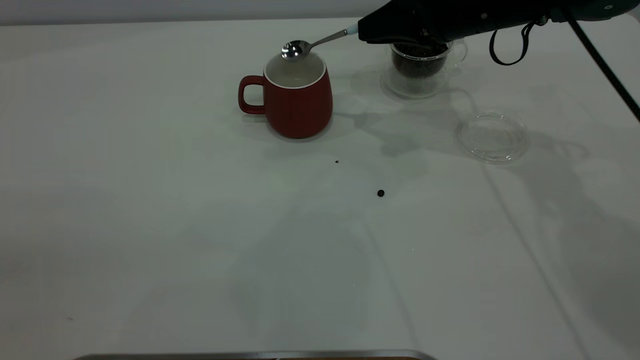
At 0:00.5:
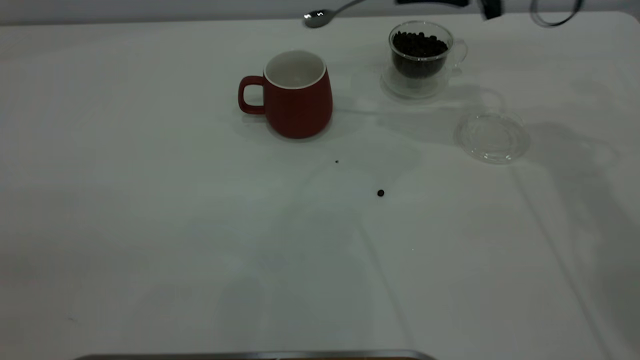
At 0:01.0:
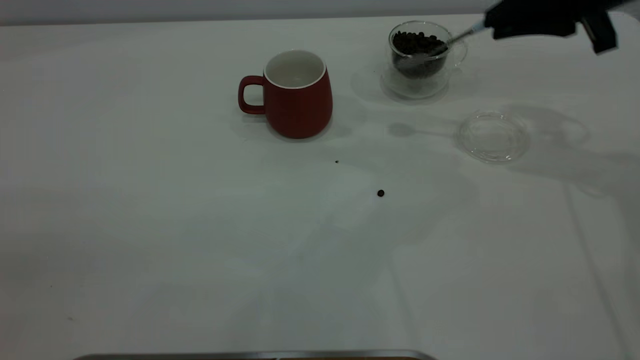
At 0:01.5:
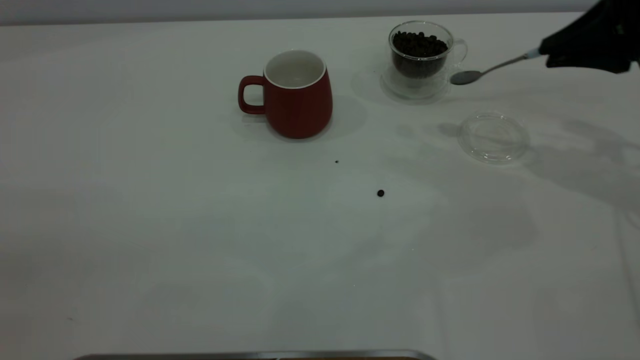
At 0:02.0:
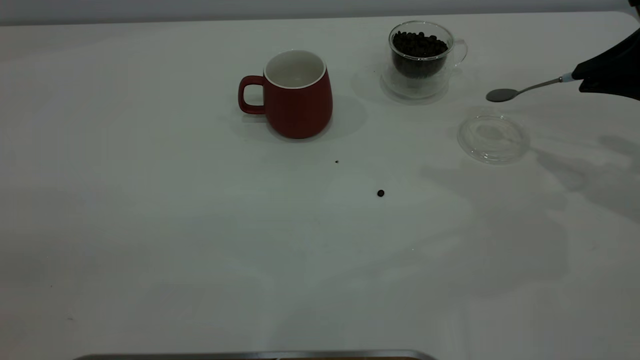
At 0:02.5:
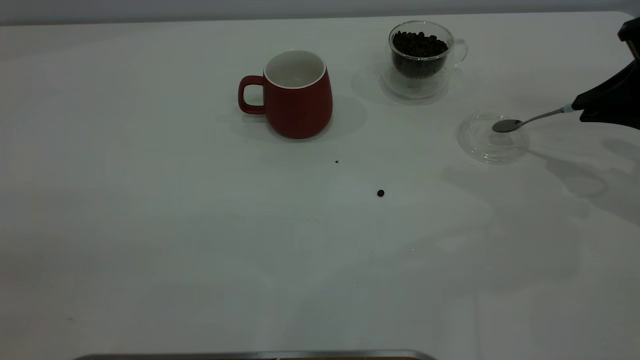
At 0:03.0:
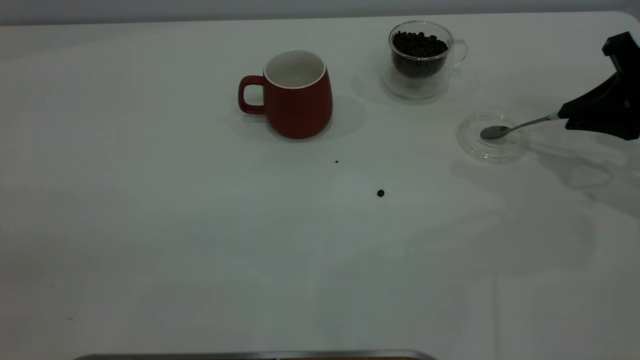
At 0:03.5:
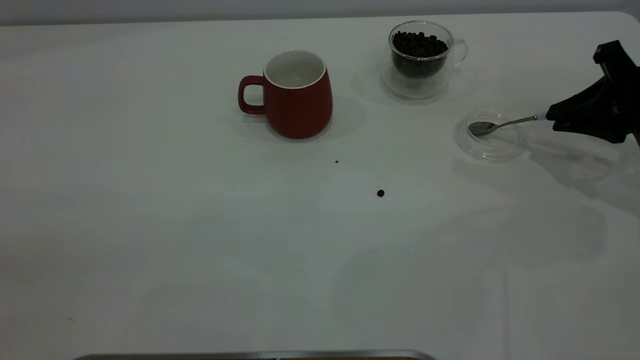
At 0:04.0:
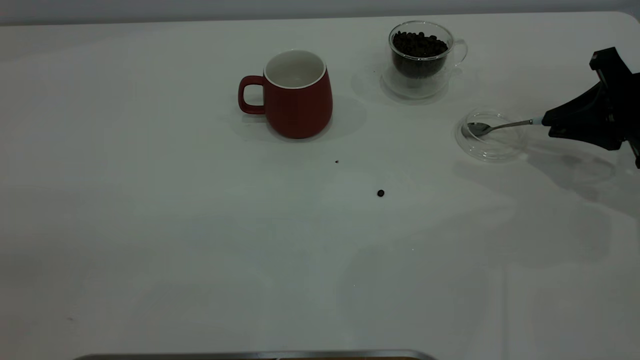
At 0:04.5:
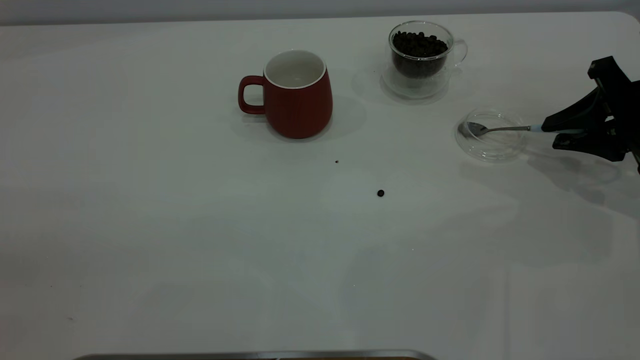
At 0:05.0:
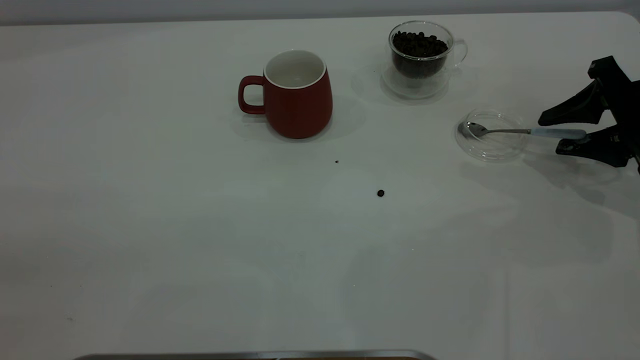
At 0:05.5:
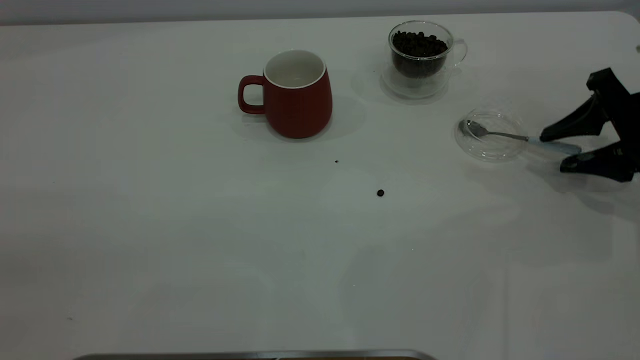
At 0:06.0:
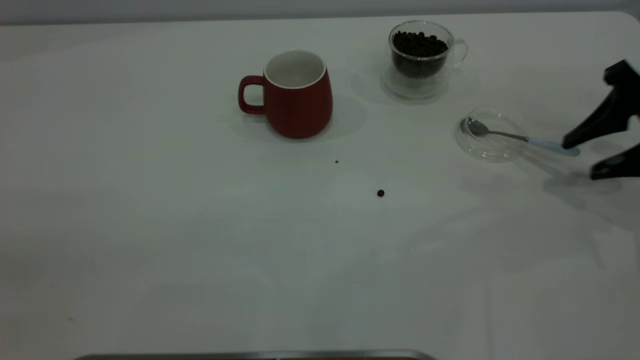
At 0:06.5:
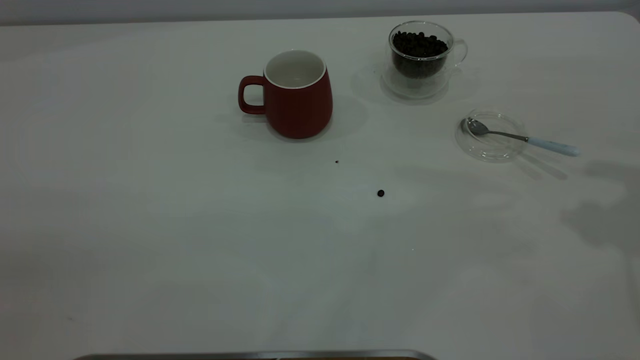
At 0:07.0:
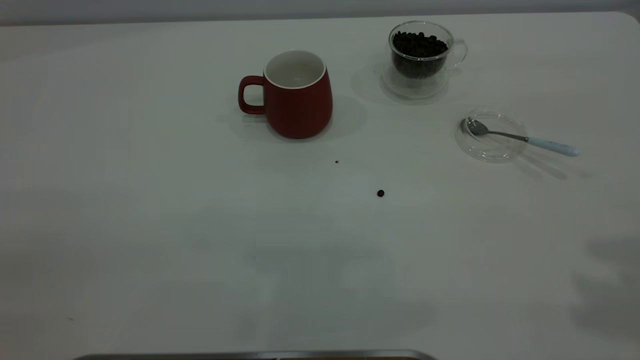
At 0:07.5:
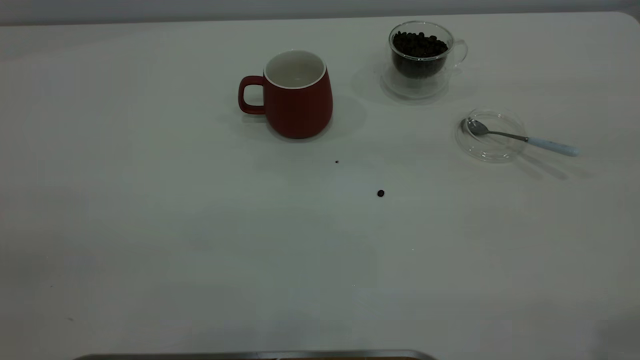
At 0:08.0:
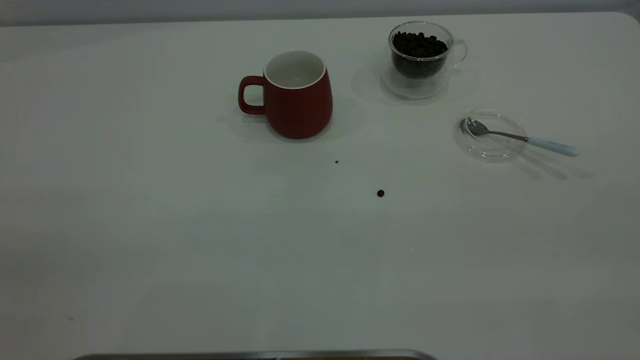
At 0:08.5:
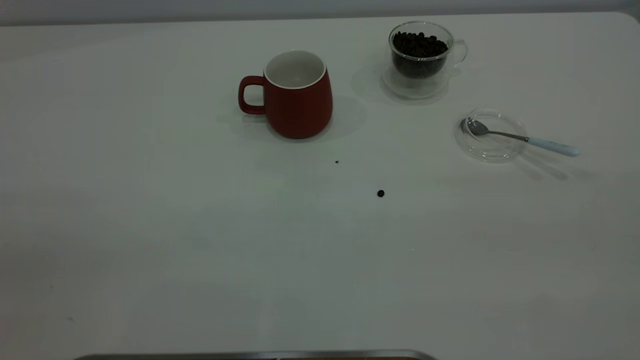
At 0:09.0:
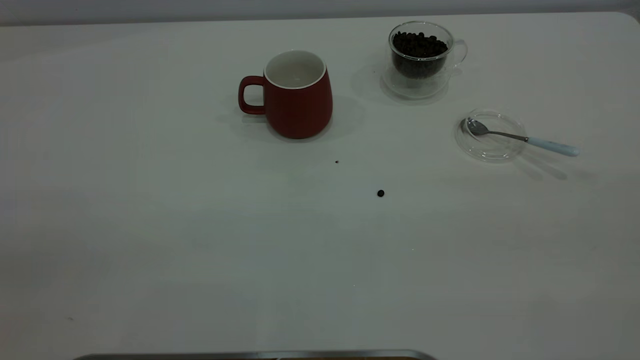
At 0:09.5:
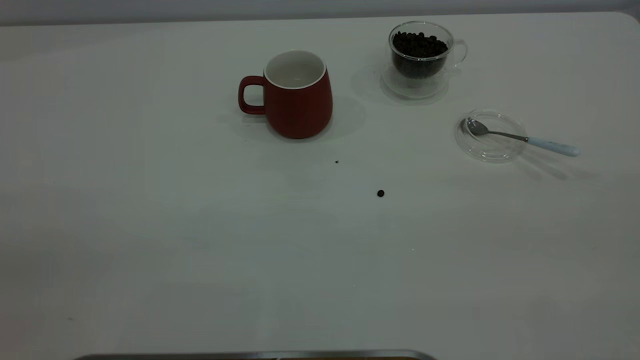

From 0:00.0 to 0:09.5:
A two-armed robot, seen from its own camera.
Task of the whole recording: the left gripper place the red cup in the center of the table, the right gripper take the blue spoon from the cup lid and scoop out the coffee beans from the coffee cup and put them into the red cup, the right gripper put the spoon back into the cup lid.
Step, from 0:00.5 to 0:05.5: Place the spoon back in its original place.
From 0:00.0 to 0:02.0: The right gripper shifts about 20 cm to the right and backward.
From 0:02.0 to 0:04.0: The right gripper travels downward by about 5 cm.
From 0:04.0 to 0:05.5: The right gripper opens.
From 0:05.5 to 0:07.5: The right gripper travels upward and backward by some 40 cm.

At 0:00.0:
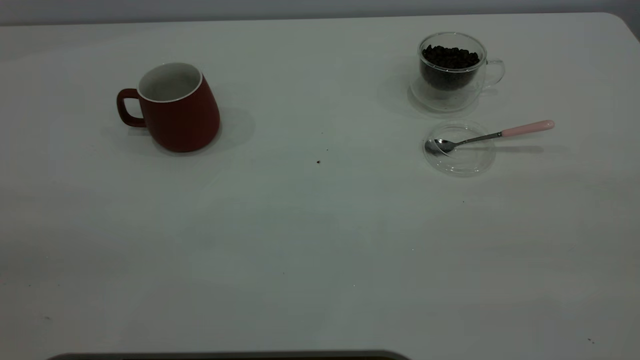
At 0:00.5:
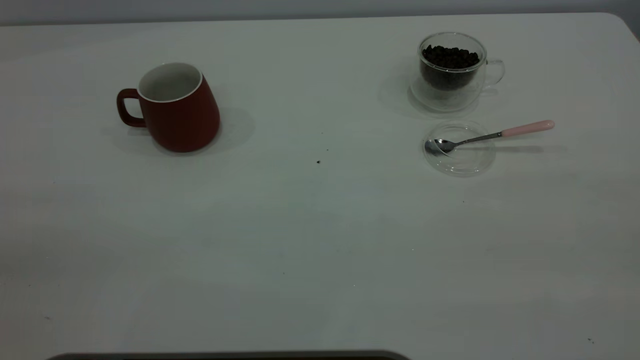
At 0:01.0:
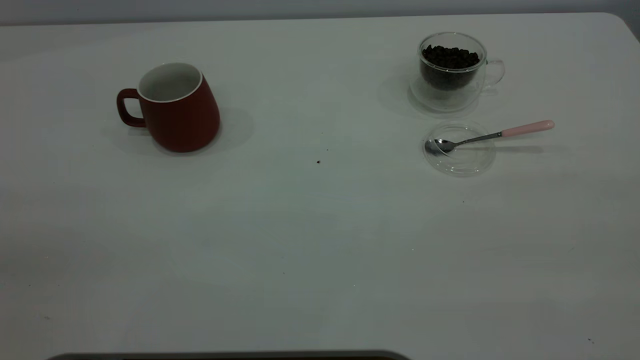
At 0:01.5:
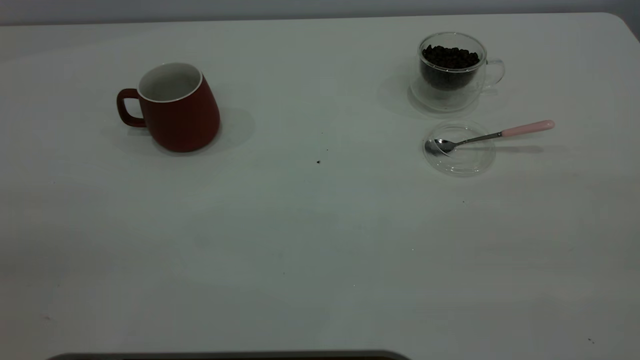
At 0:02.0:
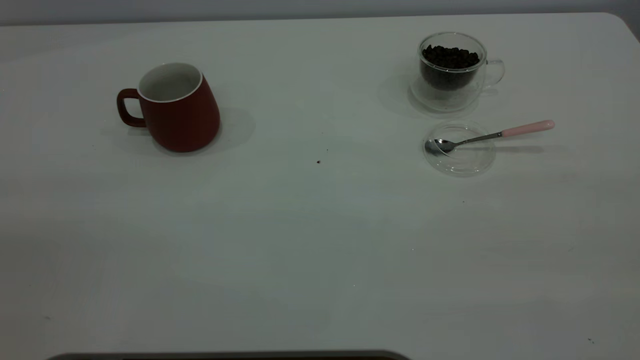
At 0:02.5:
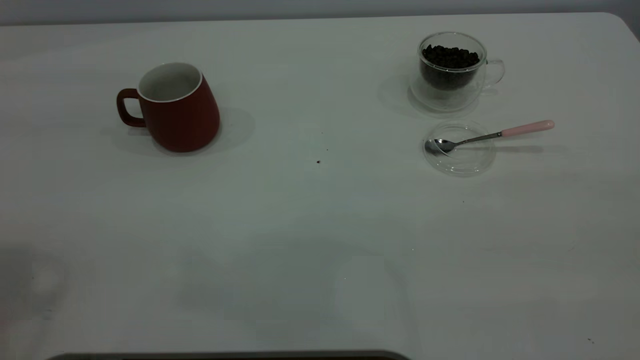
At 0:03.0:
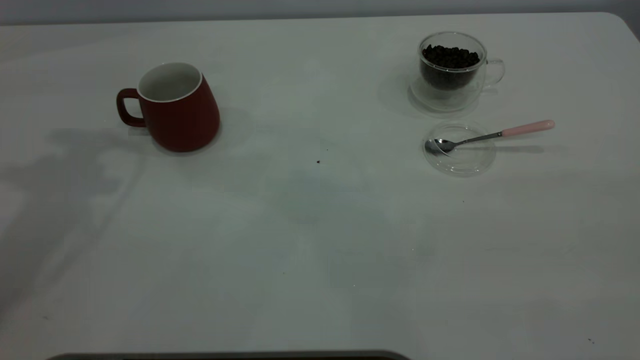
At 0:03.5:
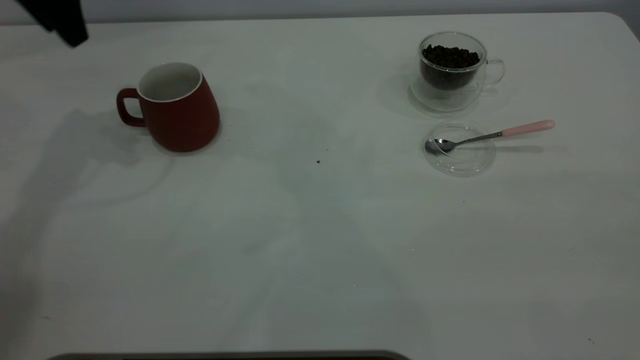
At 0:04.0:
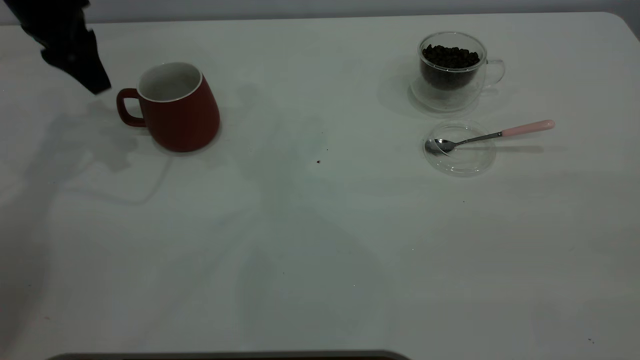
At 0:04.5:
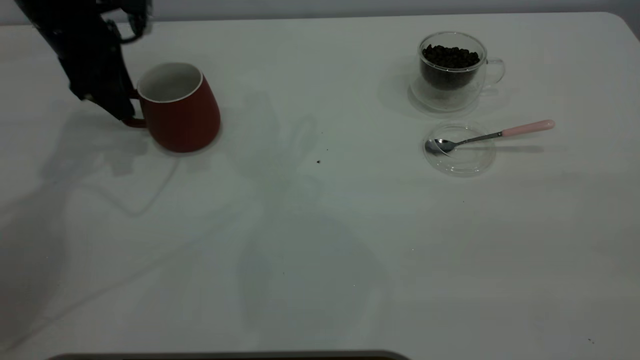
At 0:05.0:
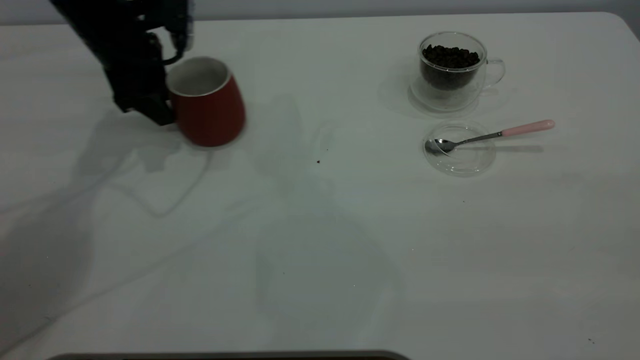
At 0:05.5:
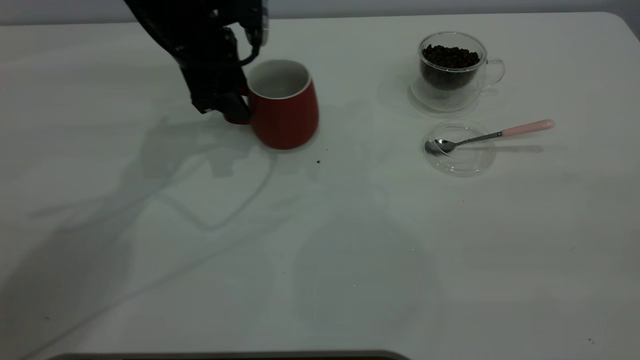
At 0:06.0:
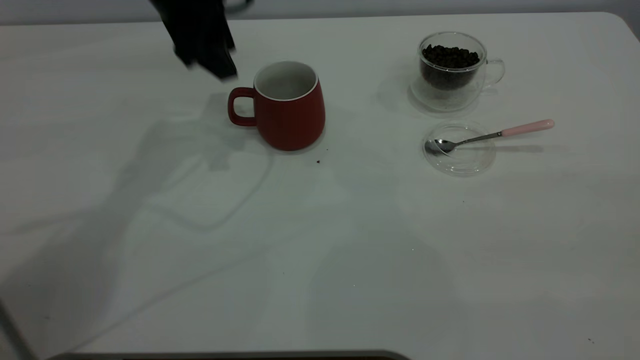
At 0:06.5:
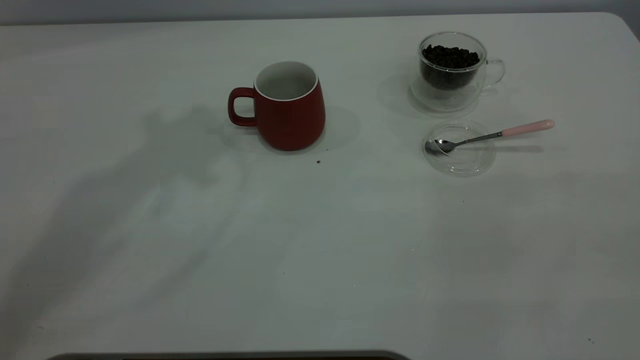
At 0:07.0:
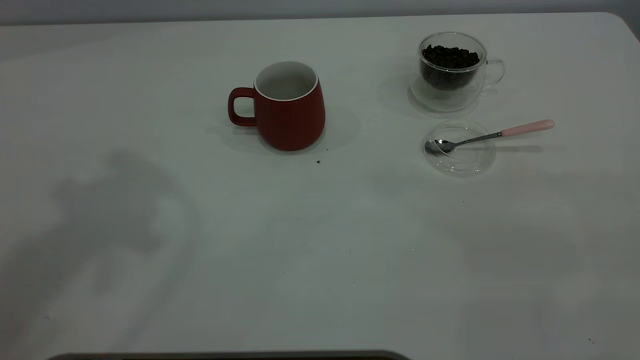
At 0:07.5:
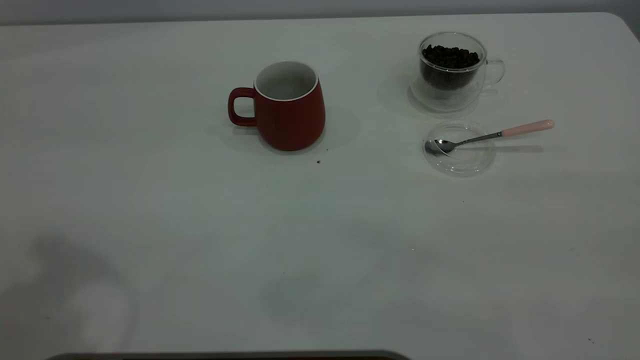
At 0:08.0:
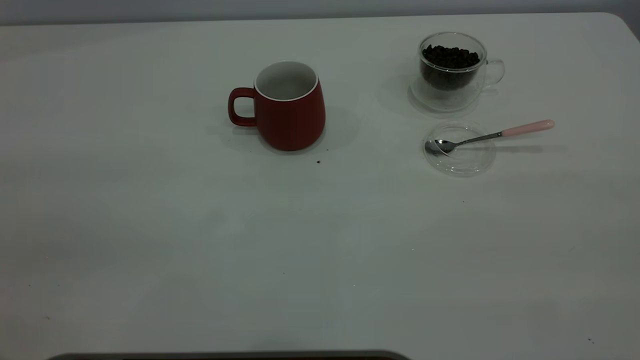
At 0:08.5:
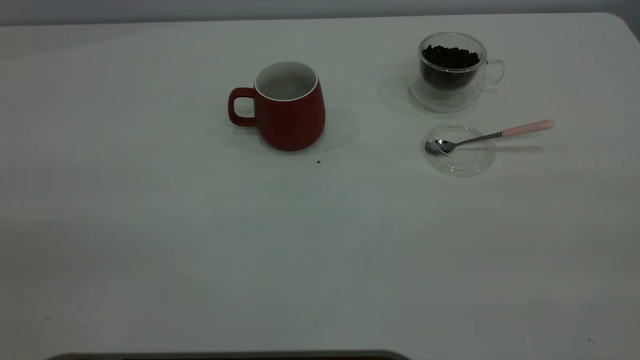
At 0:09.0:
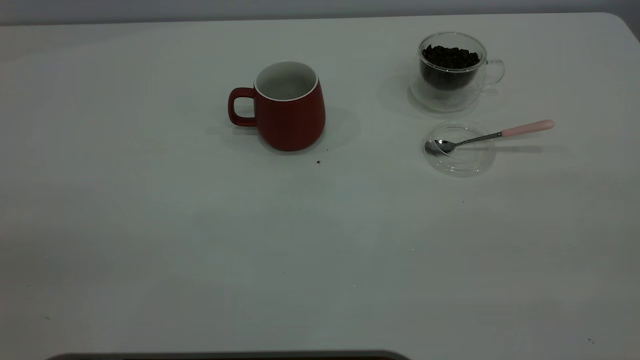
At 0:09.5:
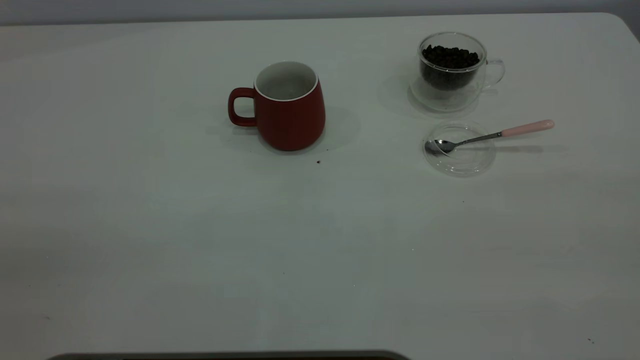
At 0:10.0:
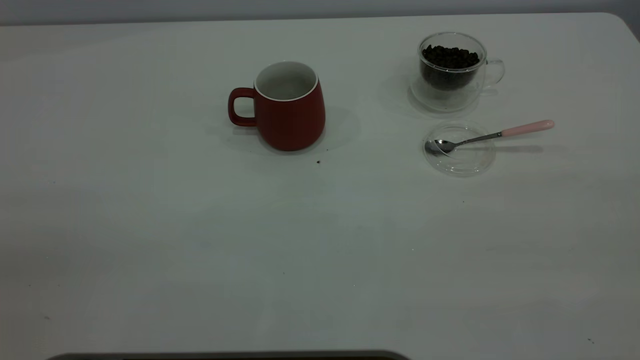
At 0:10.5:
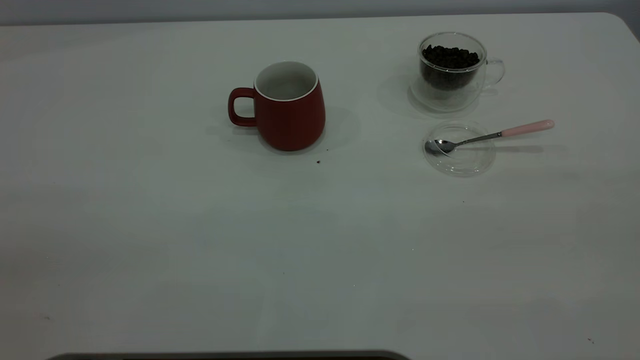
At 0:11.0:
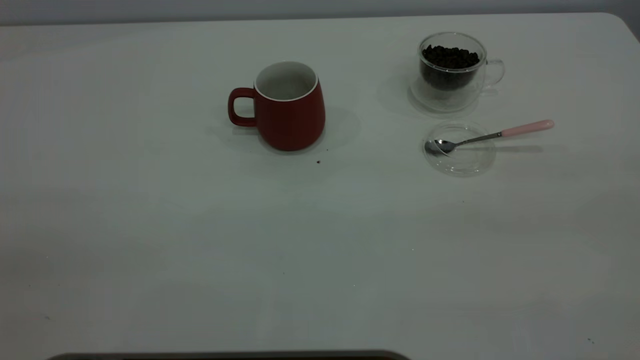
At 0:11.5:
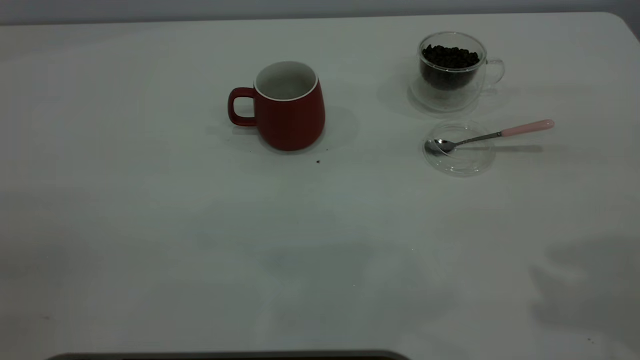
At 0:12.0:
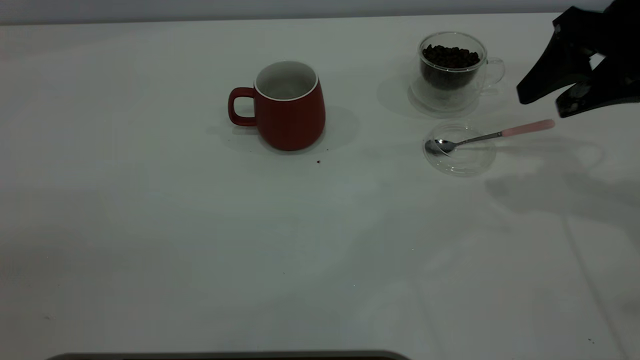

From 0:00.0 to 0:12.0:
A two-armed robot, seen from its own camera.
Task of the whole recording: the left gripper place the red cup in the center of the table, the right gripper take the pink spoon from the cup lid and scoop out the coffee beans from the coffee cup and put them into the red cup, the right gripper put the spoon back into the cup lid.
Step, from 0:00.0 to 0:05.5: Move the cup to the center of view.
From 0:02.0 to 0:04.0: The left gripper goes some 50 cm forward and downward.
From 0:04.0 to 0:06.0: The left gripper shifts about 15 cm to the right.
From 0:06.0 to 0:08.0: The left gripper shifts some 35 cm backward.
From 0:10.0 to 0:12.0: The right gripper goes approximately 40 cm forward and downward.
